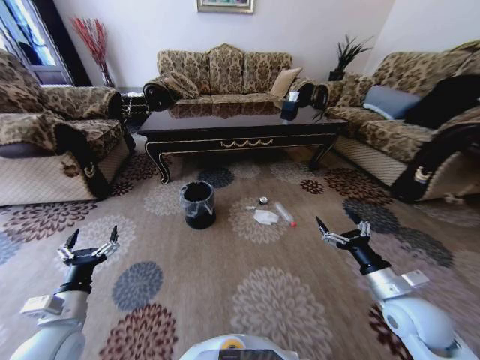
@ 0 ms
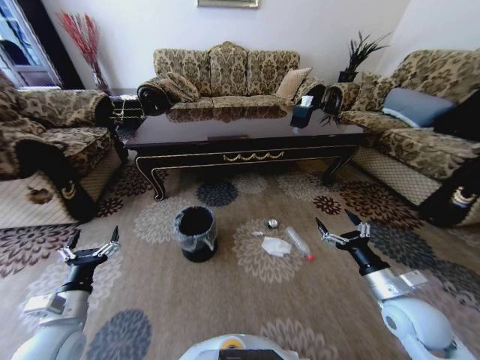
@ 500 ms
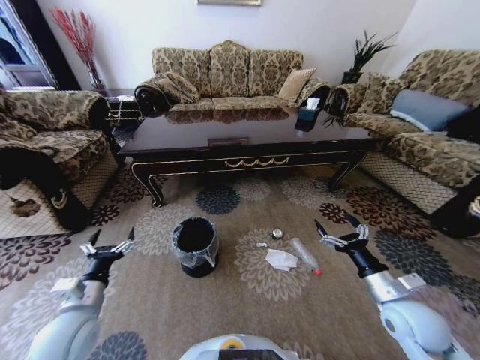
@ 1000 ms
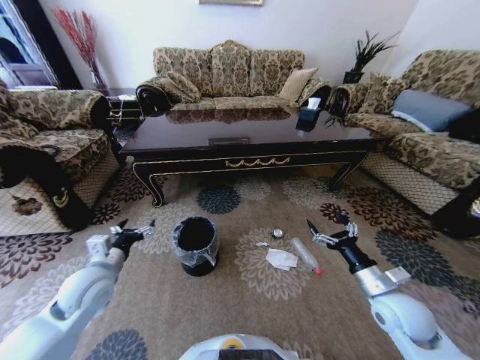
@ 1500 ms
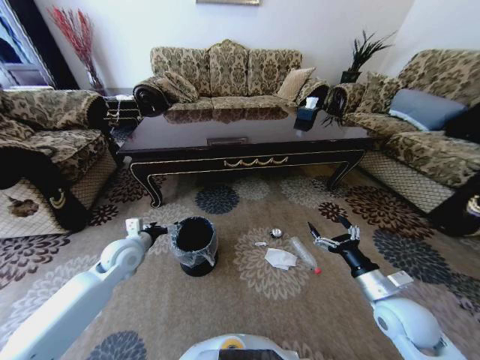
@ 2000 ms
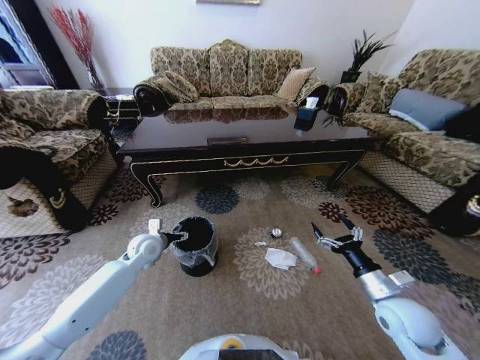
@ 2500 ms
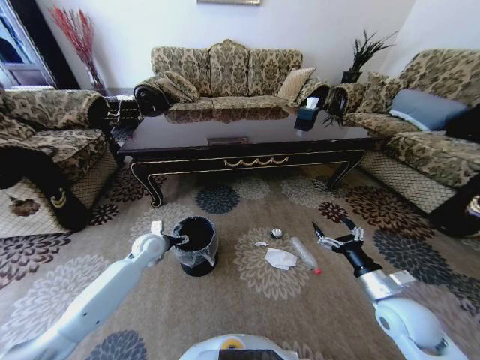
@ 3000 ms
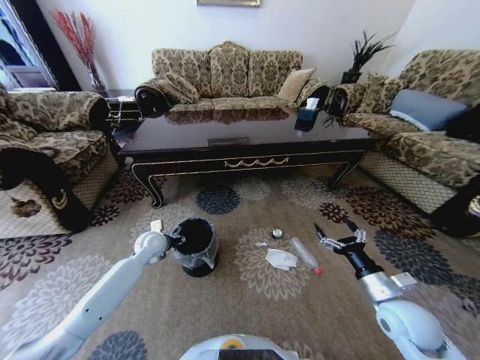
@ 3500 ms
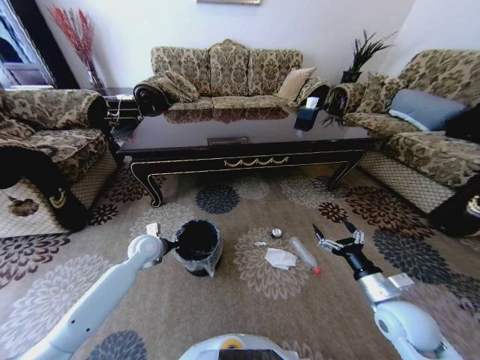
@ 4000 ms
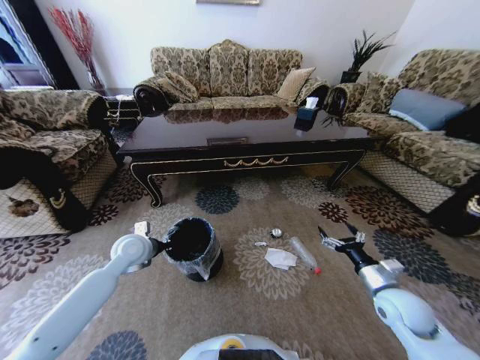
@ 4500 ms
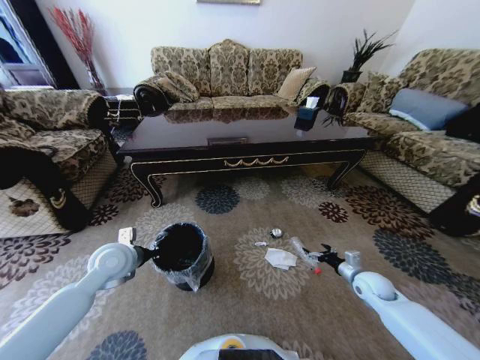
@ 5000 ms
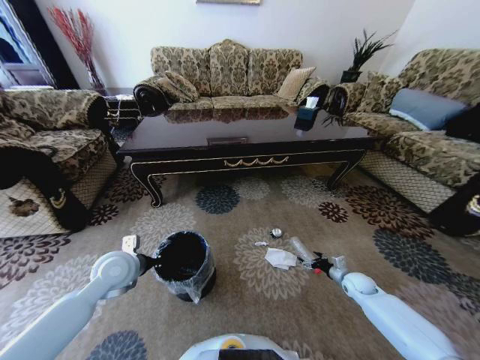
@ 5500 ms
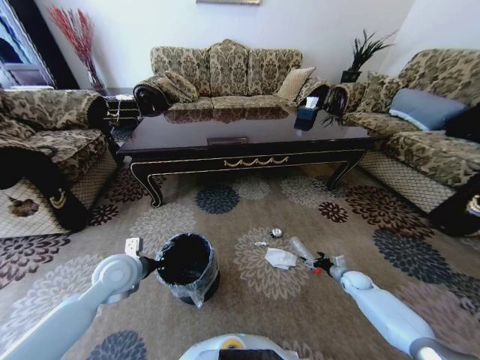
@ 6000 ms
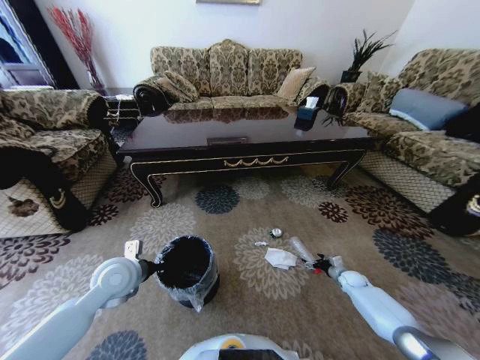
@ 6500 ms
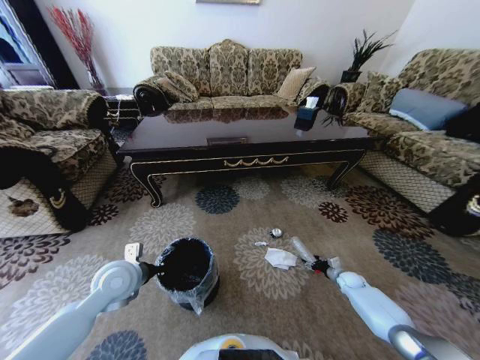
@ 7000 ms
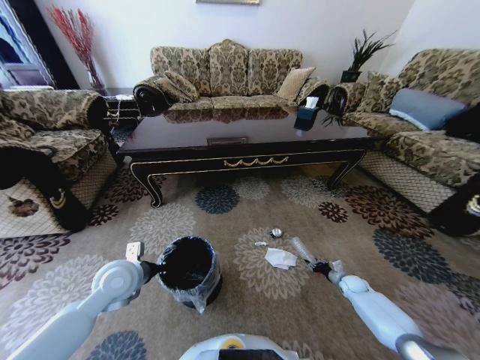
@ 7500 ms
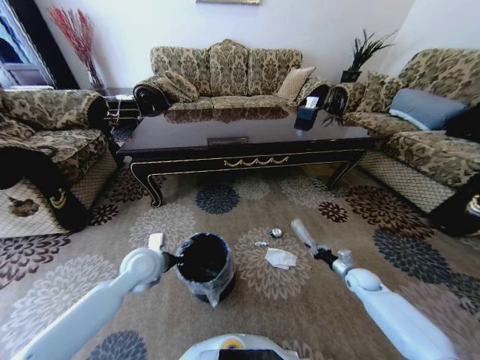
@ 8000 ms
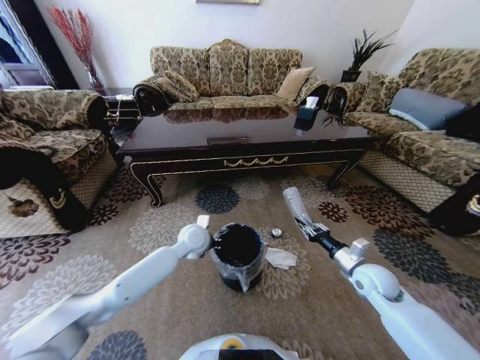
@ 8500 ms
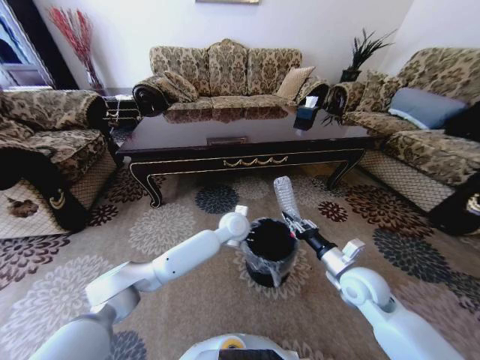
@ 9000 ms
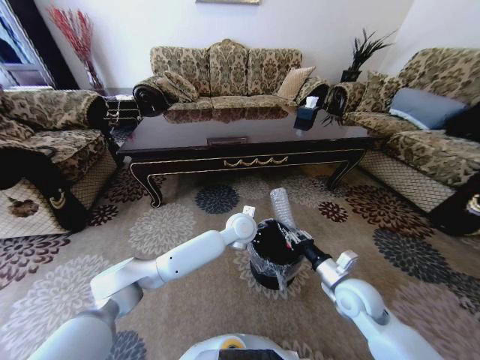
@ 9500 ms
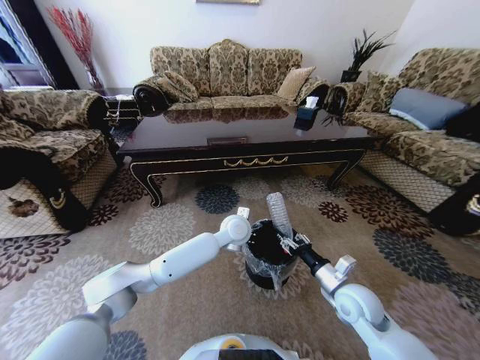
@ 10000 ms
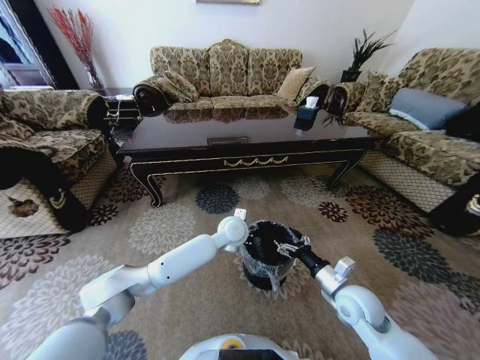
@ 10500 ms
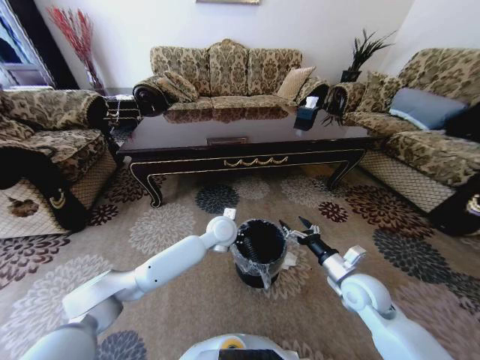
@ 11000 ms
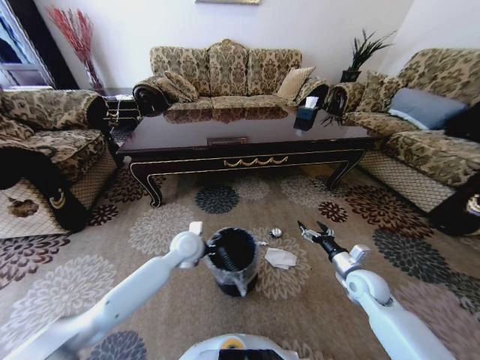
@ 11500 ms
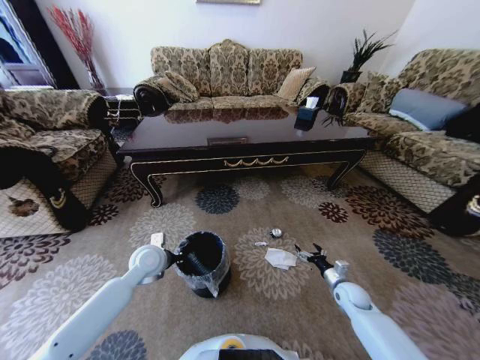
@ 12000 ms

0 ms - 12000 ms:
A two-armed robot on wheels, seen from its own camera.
Task of the whole recording: Move to the front of the table and pick up the trash from the floor, then place it into the trash bin.
0 ms - 2000 ms: The left gripper heads forward, covering roughly 20 cm.
2000 ms - 4000 ms: The left gripper moves about 5 cm, and closes up.
4000 ms - 6000 ms: The left gripper moves backward and upward, about 10 cm. The right gripper is displaced downward, forward and to the right by approximately 30 cm.
6000 ms - 8000 ms: The right gripper heads upward, covering about 5 cm, and closes, while the left gripper moves approximately 5 cm.
8000 ms - 10000 ms: The left gripper is displaced to the right by roughly 25 cm. Meanwhile the right gripper is displaced to the left, upward and backward by some 25 cm.
10000 ms - 12000 ms: The right gripper shifts about 20 cm downward and to the right, and opens. The left gripper moves to the left, approximately 25 cm.

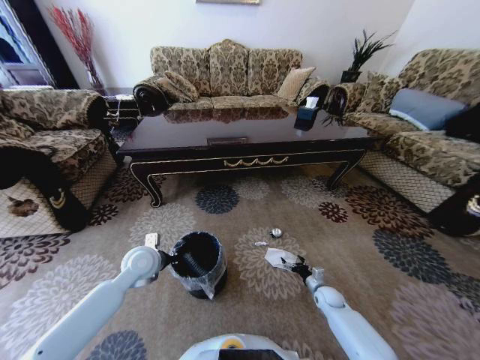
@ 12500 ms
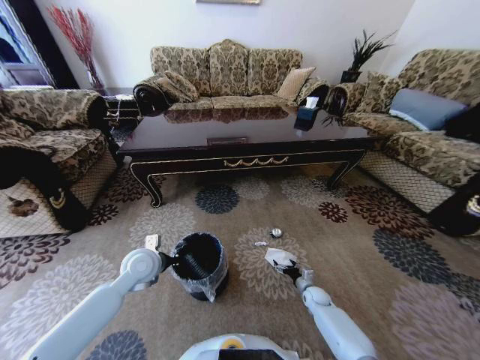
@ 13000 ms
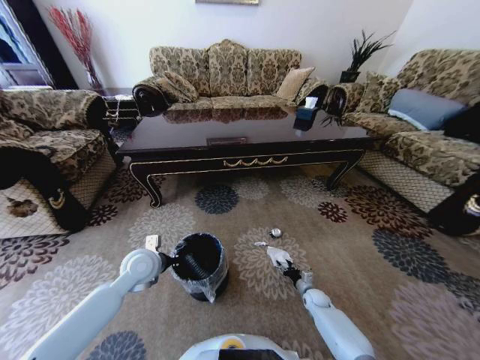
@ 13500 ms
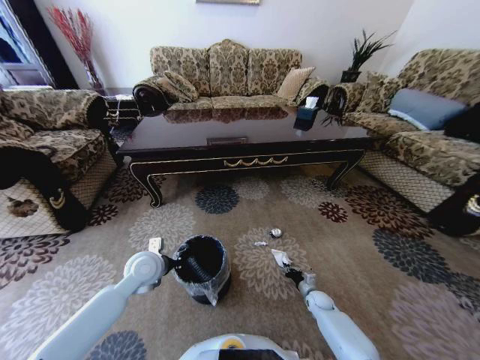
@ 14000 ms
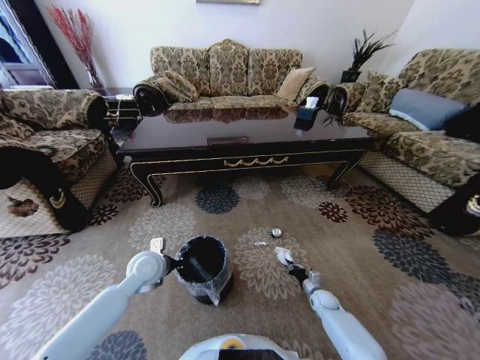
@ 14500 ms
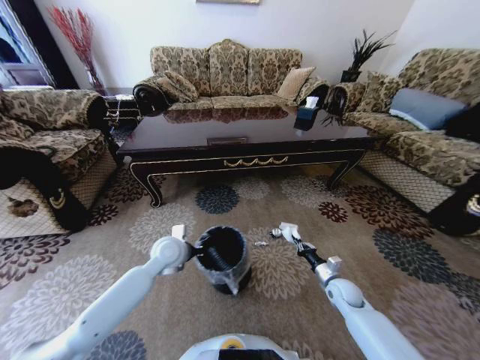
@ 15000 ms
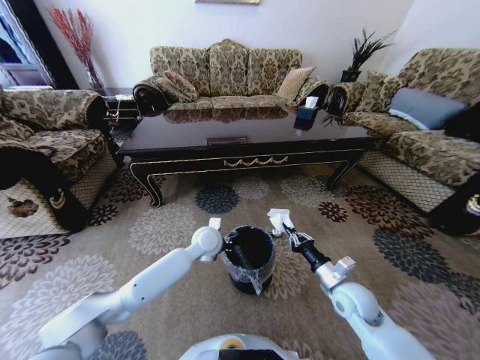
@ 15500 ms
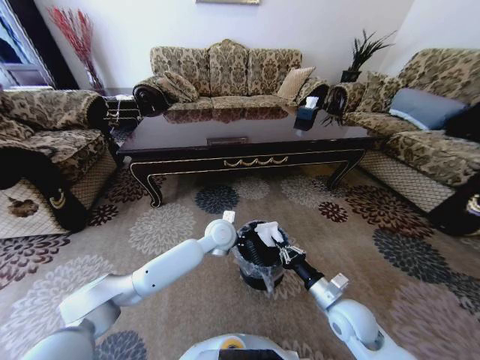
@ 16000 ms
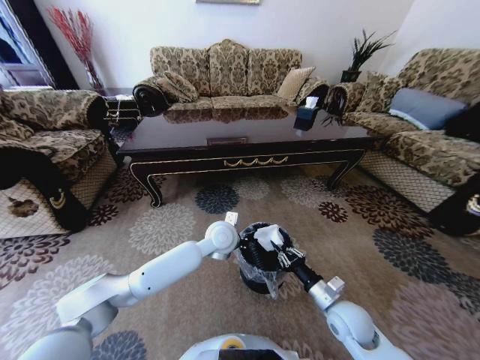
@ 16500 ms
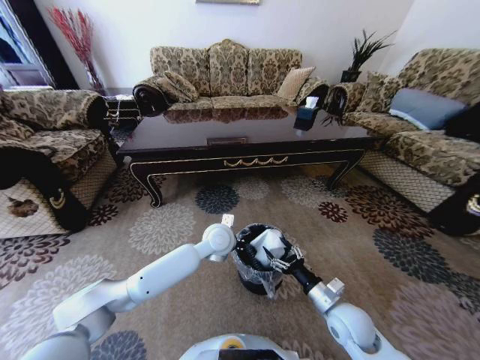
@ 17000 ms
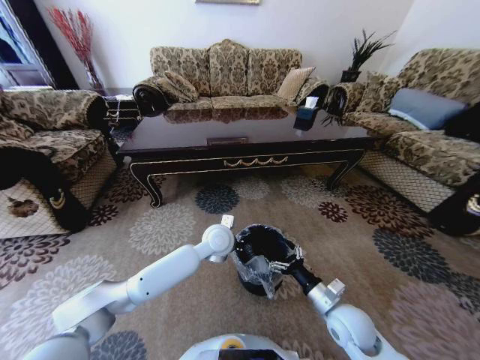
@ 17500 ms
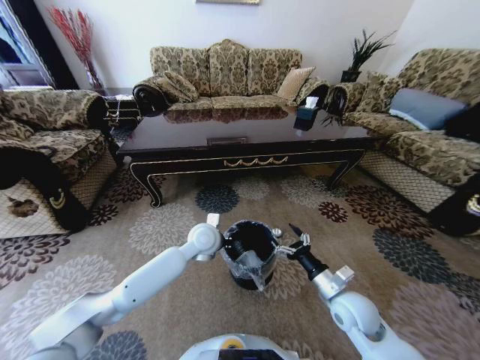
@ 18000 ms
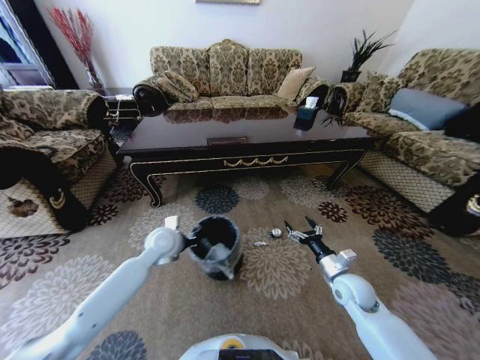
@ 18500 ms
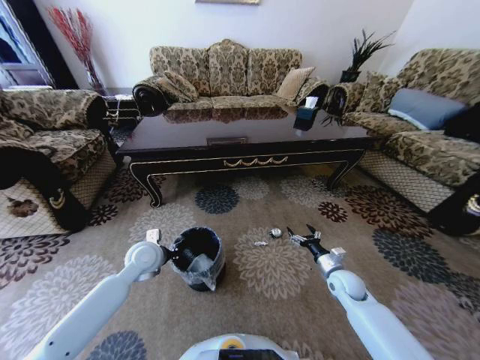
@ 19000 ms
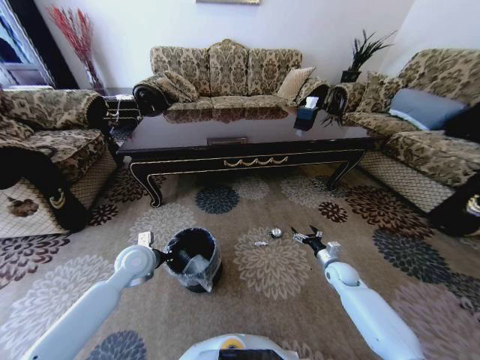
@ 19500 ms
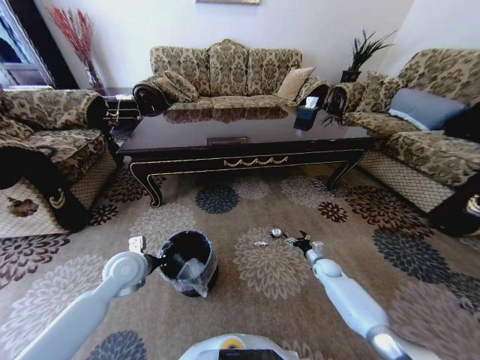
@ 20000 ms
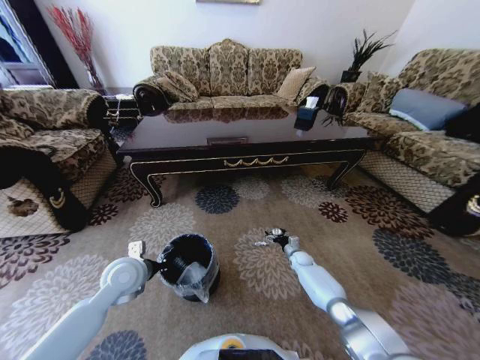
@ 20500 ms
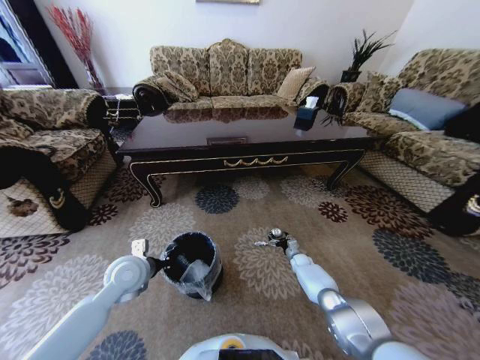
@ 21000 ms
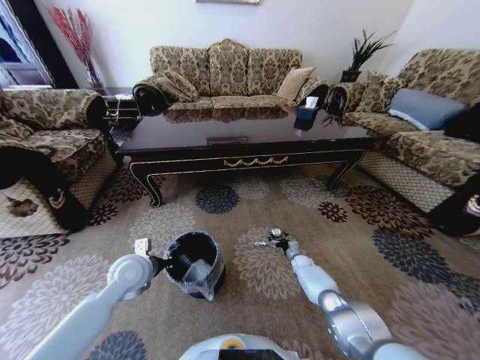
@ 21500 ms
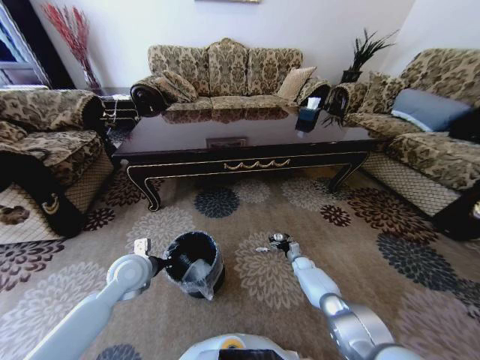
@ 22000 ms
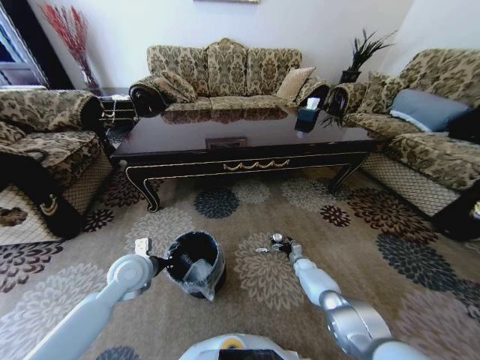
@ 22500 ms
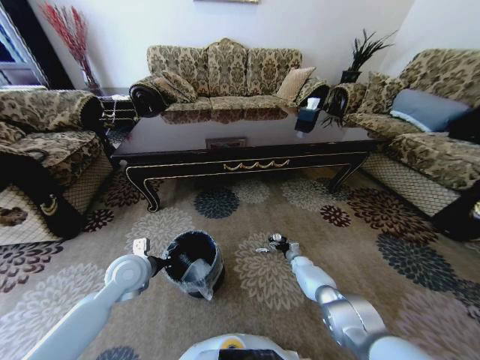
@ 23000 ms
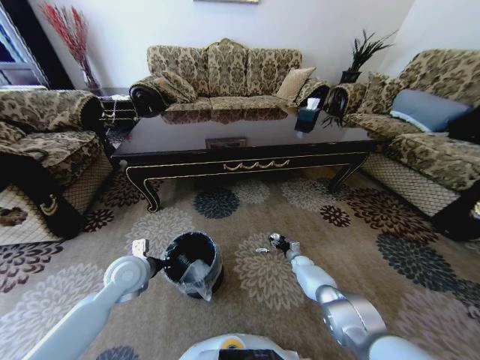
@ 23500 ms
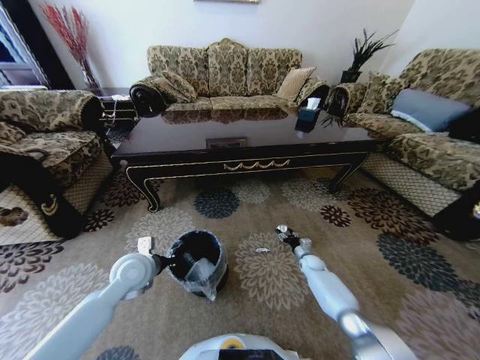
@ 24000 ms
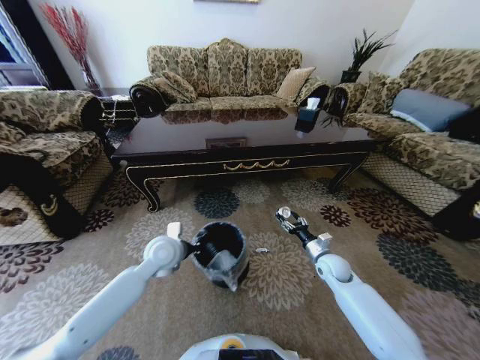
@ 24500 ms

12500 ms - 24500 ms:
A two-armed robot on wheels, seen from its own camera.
Task of the whole recording: Move to the front of the table and pick up the trash from the floor, then place it into the trash bin.
12500 ms - 14500 ms: The right gripper closes.
14500 ms - 16500 ms: The right gripper moves upward and backward, about 25 cm, while the left gripper travels to the right by roughly 20 cm.
16500 ms - 18500 ms: The left gripper heads to the left, covering approximately 20 cm. Meanwhile the right gripper is displaced forward by approximately 5 cm, and opens up.
18500 ms - 20500 ms: The right gripper is displaced downward and forward by some 25 cm; the left gripper travels backward and to the left by about 10 cm.
20500 ms - 22500 ms: The right gripper moves some 5 cm.
22500 ms - 24500 ms: The right gripper moves upward and backward, about 20 cm, and closes; the left gripper is displaced to the right by some 10 cm.

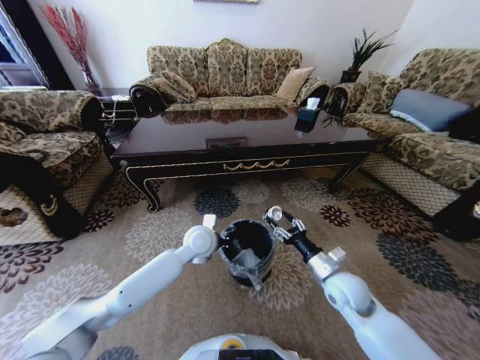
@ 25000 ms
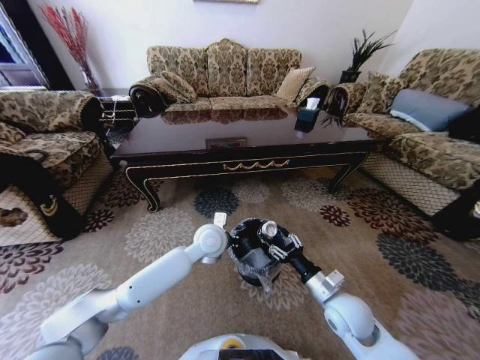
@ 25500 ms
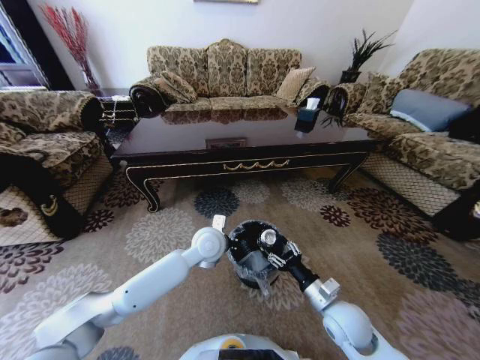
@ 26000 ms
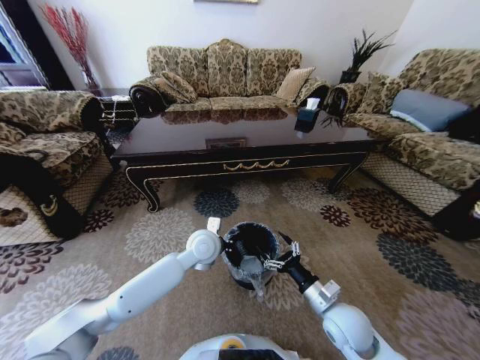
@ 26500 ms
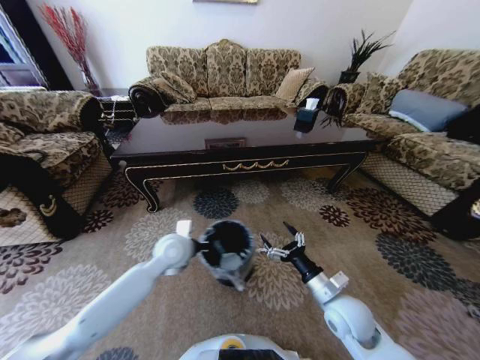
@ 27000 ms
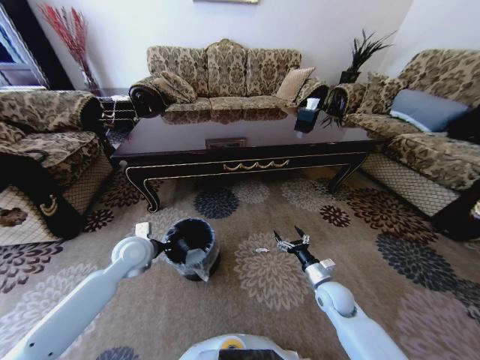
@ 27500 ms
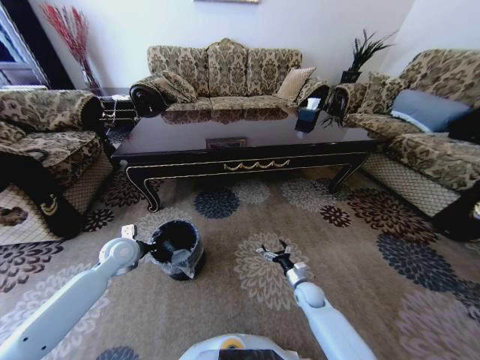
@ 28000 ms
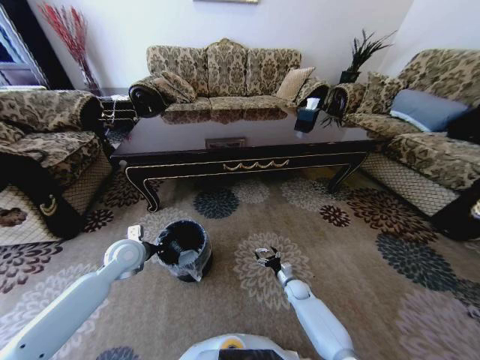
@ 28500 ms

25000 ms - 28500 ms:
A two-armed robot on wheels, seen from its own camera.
Task of the whole recording: Move to the front of the table and pick up the trash from the floor, then place it into the trash bin.
25000 ms - 27000 ms: The left gripper travels to the left by some 5 cm, while the right gripper heads backward, covering roughly 5 cm, and opens up.
27000 ms - 28500 ms: The right gripper goes about 30 cm downward and forward. Meanwhile the left gripper travels to the left by roughly 15 cm.
